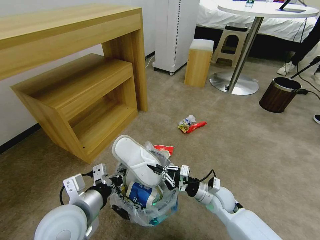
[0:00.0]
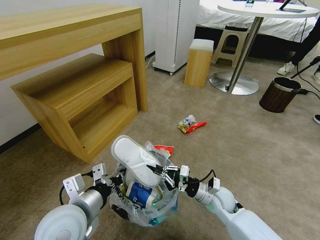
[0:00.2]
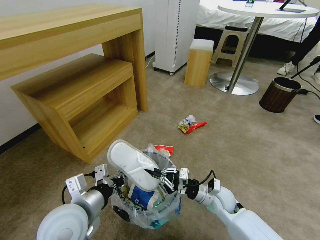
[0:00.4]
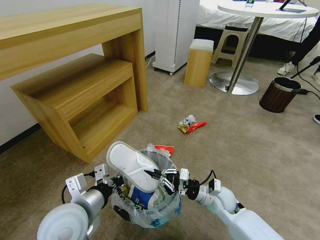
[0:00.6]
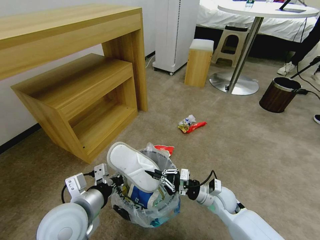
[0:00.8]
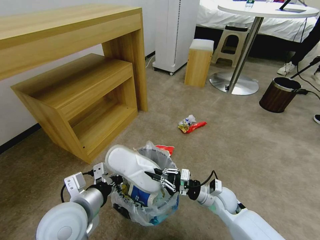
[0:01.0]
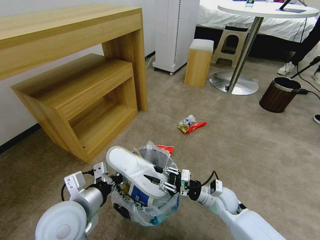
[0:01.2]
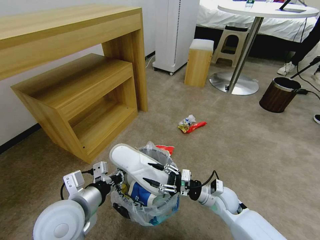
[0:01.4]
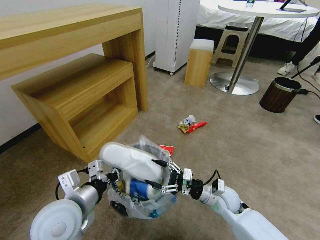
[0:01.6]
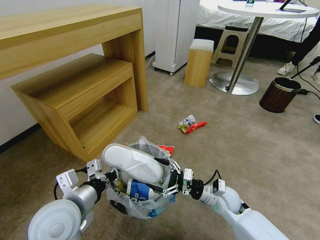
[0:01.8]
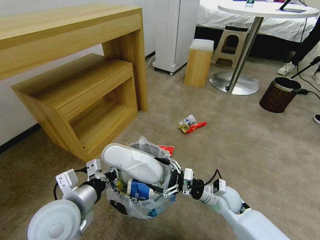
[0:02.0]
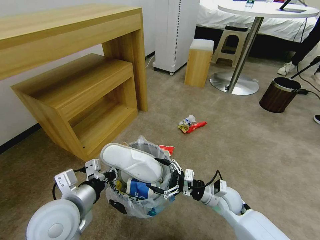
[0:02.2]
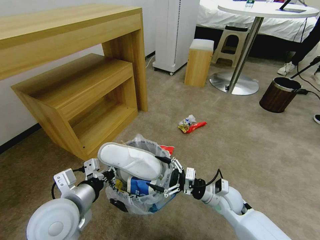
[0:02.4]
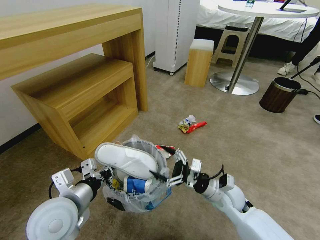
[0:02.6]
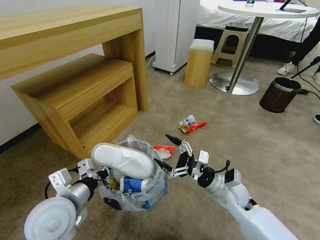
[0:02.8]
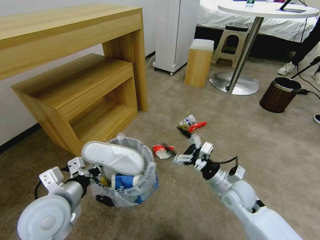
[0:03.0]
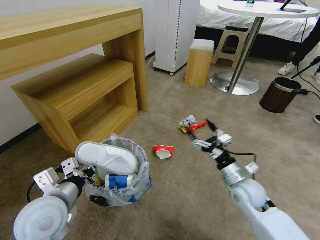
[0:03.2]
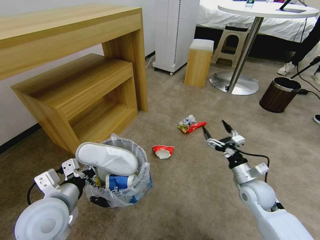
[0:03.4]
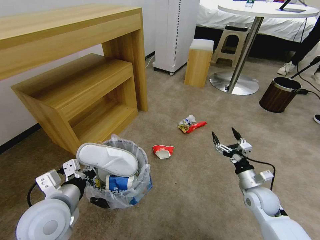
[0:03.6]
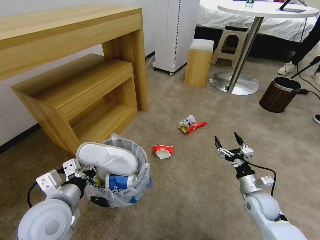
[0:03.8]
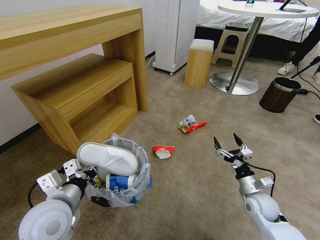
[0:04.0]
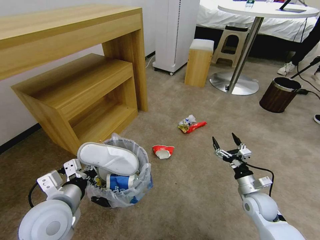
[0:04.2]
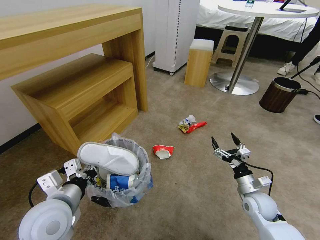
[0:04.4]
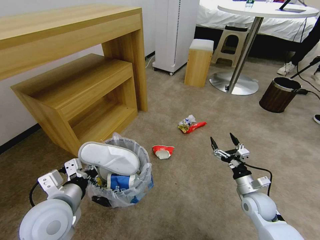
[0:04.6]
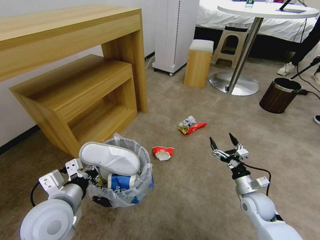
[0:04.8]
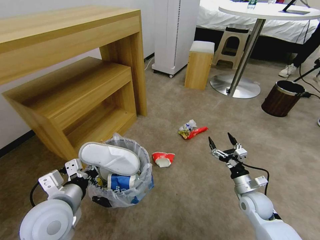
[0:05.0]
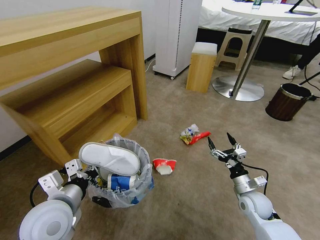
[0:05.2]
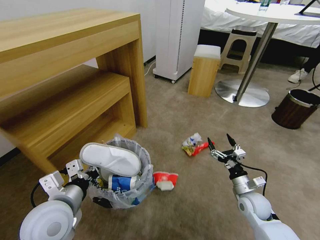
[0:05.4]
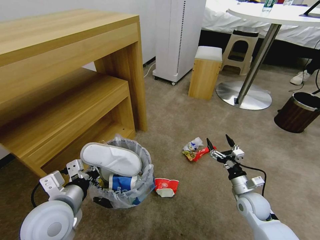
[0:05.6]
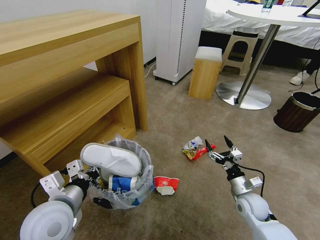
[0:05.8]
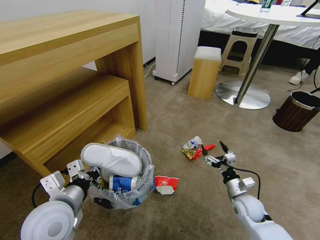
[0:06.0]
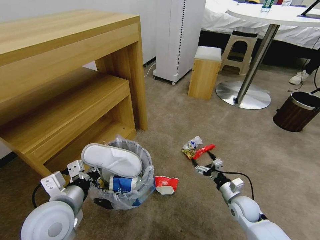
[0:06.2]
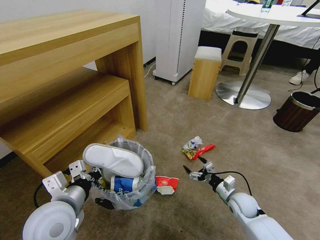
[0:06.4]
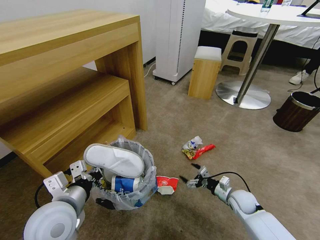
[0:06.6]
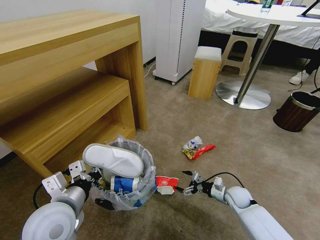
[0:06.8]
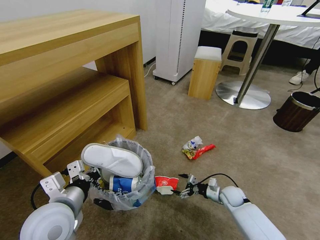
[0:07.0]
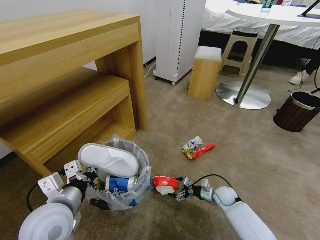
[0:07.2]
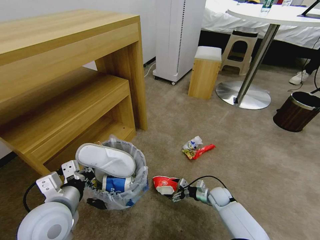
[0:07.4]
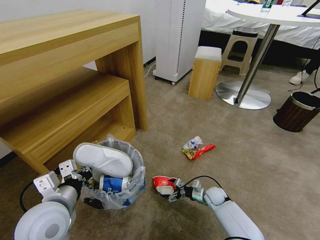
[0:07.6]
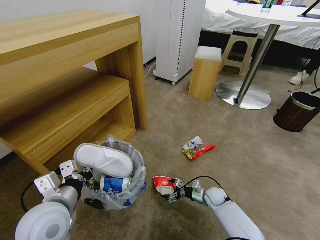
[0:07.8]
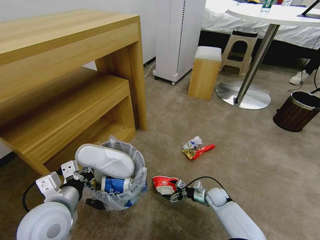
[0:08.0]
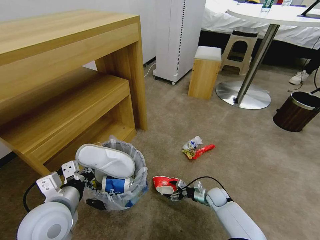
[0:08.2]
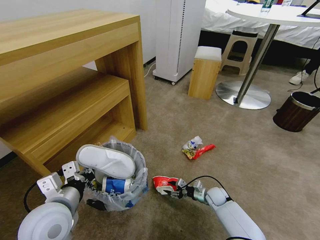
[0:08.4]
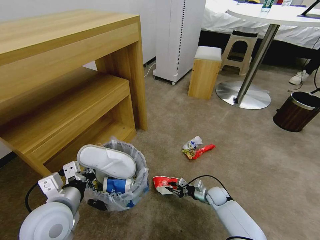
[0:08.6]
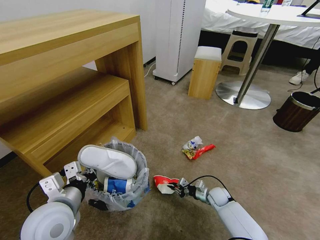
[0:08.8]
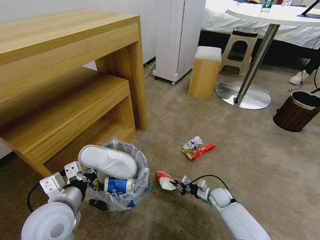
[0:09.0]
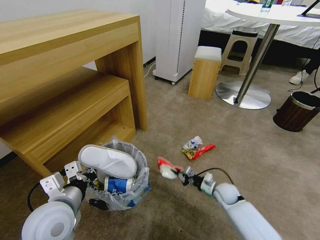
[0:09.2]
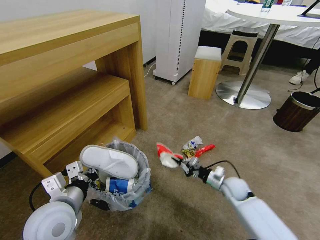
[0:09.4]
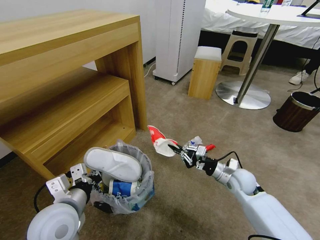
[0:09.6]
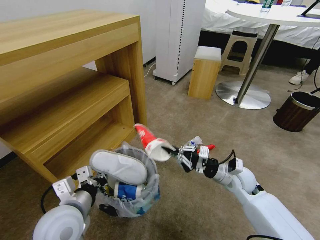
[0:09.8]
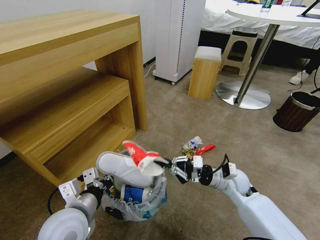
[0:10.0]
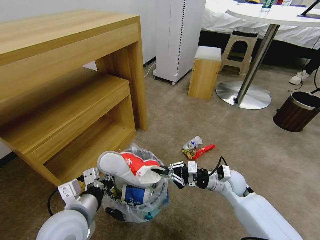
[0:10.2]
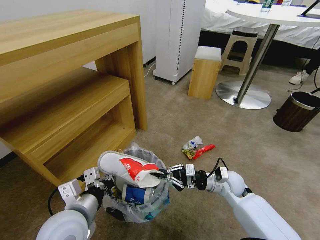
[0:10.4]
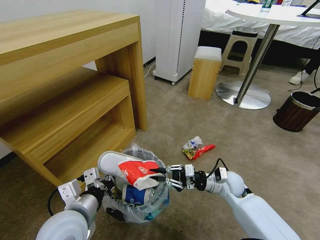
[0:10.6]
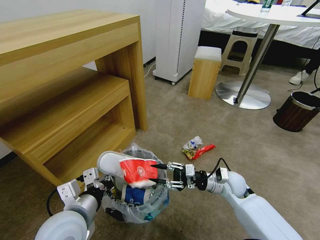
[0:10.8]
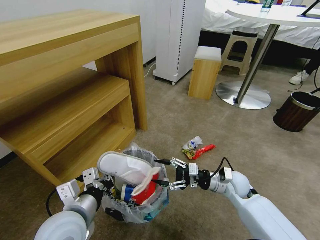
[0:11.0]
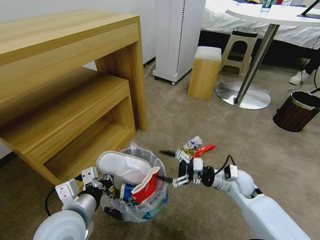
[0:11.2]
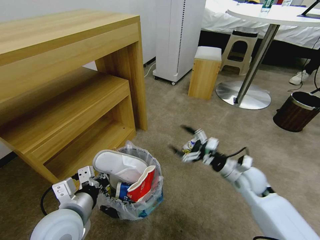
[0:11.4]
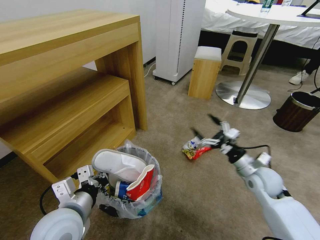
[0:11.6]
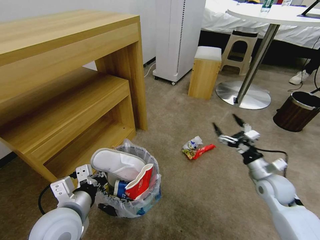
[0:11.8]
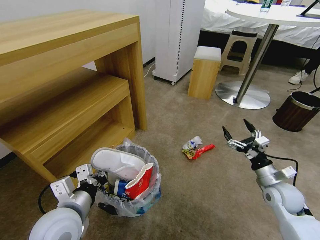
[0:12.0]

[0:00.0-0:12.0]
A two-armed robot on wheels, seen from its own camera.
Task of the whole recording: Pick up the trash bin and place the garbage on the floor into it.
0:00.0 to 0:01.6: The right gripper opens.
0:01.6 to 0:03.0: The right gripper is displaced upward by approximately 5 cm.
0:03.0 to 0:04.4: The right gripper travels to the right and downward by some 15 cm.
0:06.0 to 0:07.6: The right gripper shifts approximately 15 cm downward, forward and to the left.
0:07.6 to 0:09.0: The right gripper closes.
0:09.0 to 0:10.4: The right gripper shifts about 15 cm upward.
0:10.4 to 0:12.0: The right gripper travels to the right by about 15 cm, and opens.

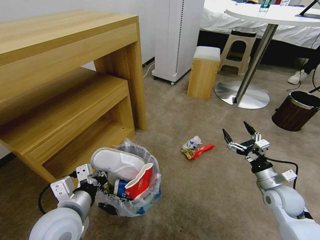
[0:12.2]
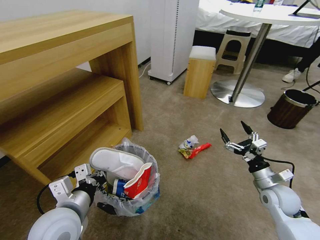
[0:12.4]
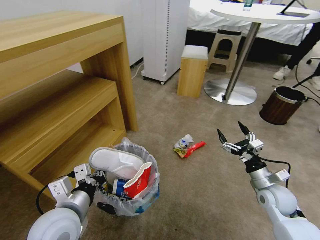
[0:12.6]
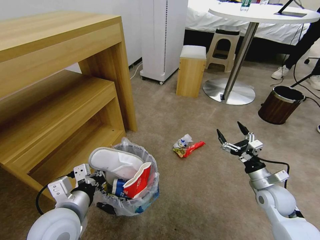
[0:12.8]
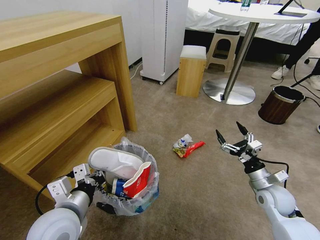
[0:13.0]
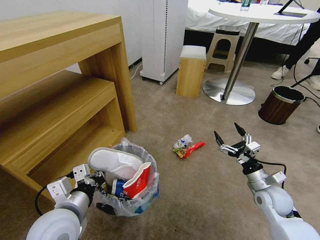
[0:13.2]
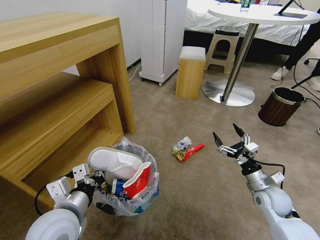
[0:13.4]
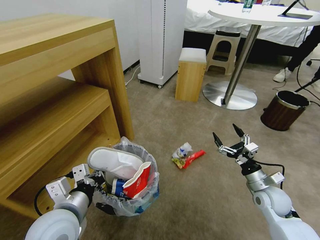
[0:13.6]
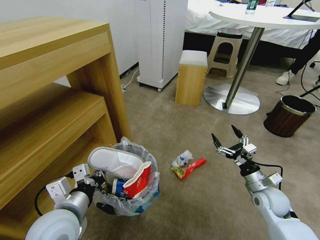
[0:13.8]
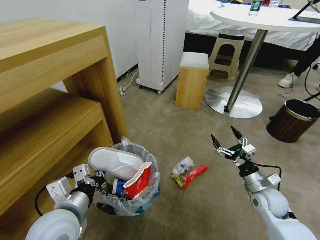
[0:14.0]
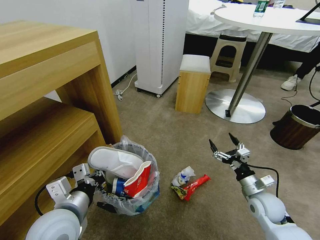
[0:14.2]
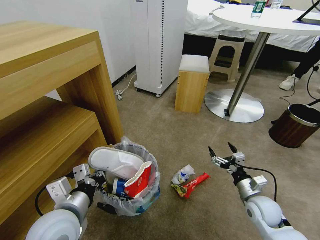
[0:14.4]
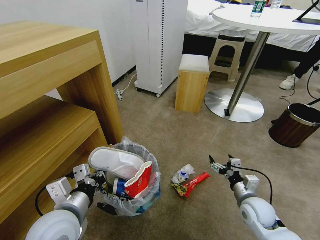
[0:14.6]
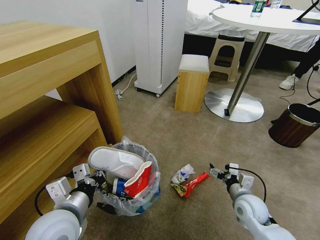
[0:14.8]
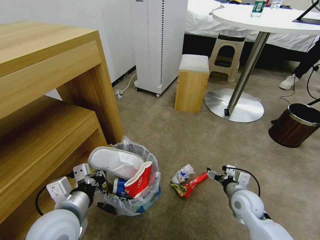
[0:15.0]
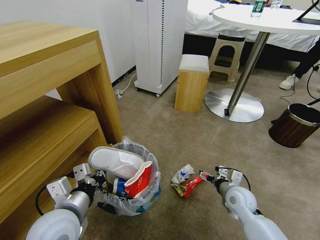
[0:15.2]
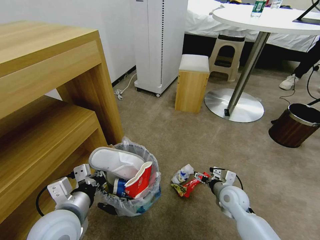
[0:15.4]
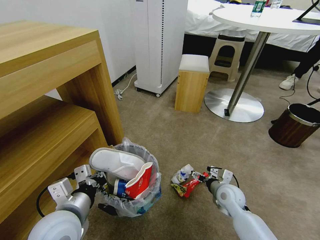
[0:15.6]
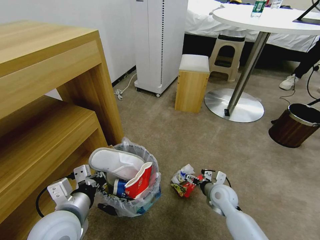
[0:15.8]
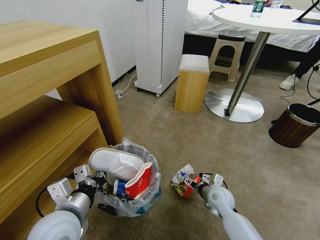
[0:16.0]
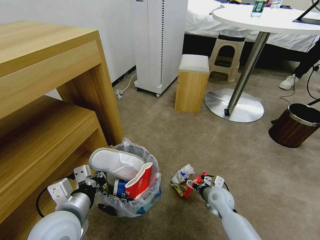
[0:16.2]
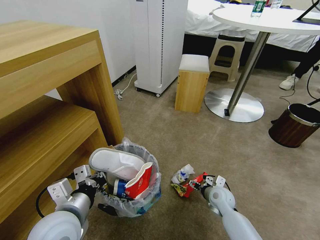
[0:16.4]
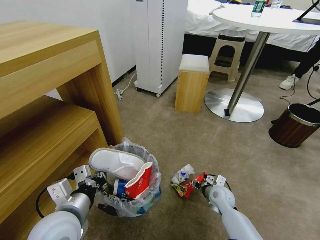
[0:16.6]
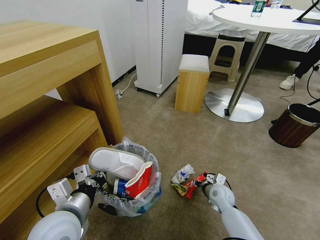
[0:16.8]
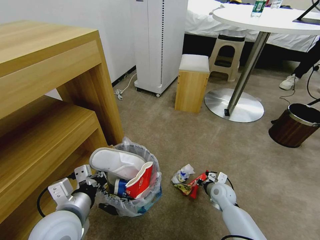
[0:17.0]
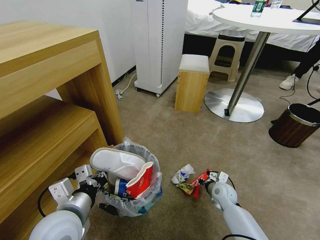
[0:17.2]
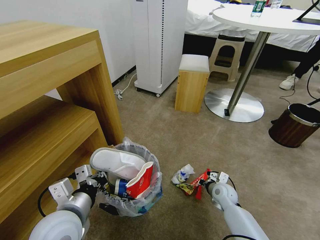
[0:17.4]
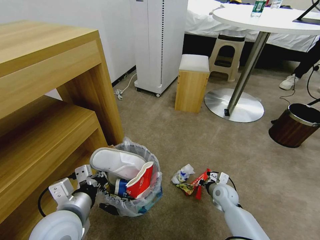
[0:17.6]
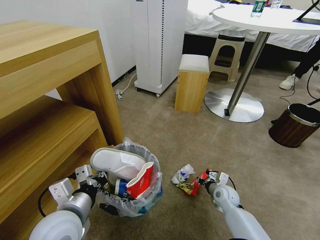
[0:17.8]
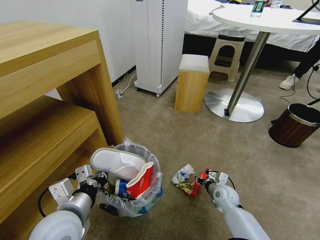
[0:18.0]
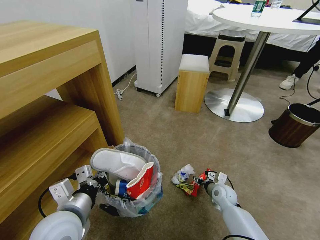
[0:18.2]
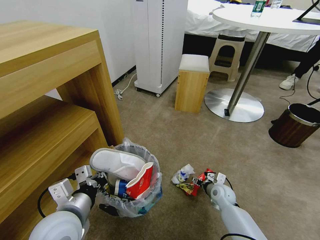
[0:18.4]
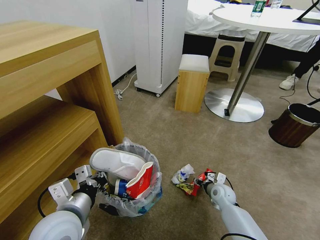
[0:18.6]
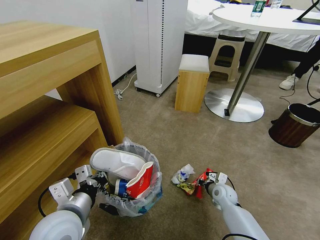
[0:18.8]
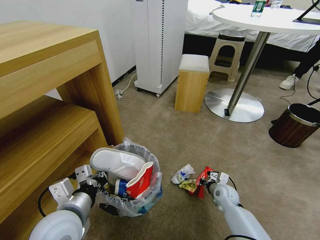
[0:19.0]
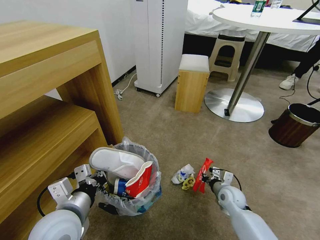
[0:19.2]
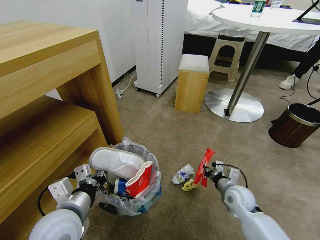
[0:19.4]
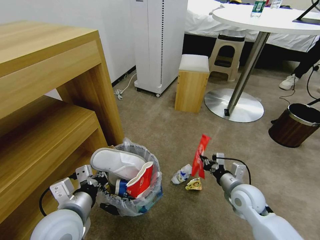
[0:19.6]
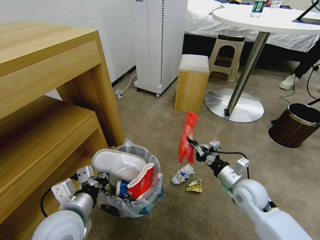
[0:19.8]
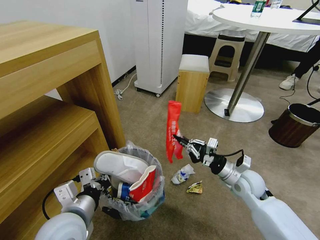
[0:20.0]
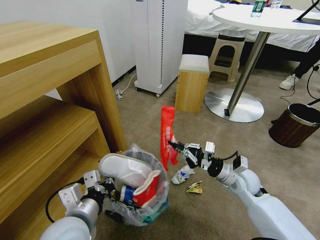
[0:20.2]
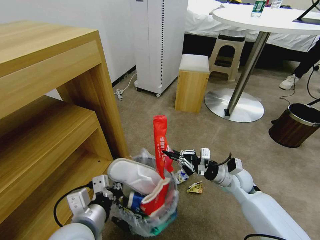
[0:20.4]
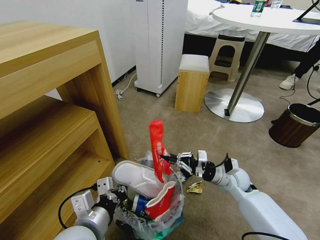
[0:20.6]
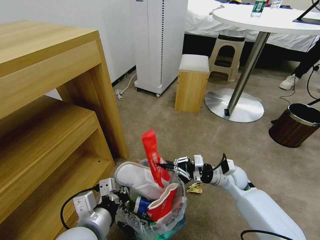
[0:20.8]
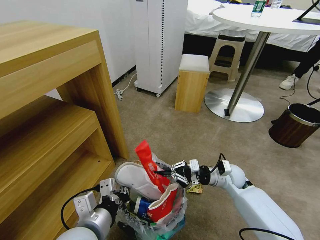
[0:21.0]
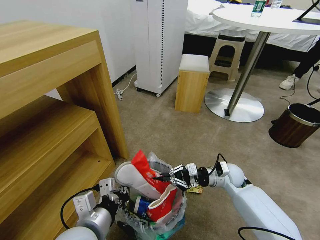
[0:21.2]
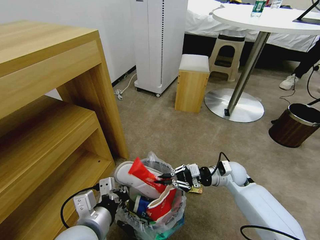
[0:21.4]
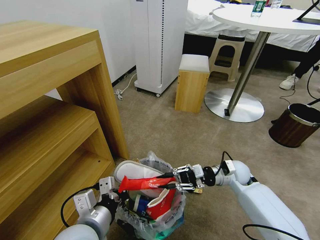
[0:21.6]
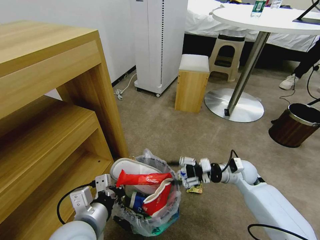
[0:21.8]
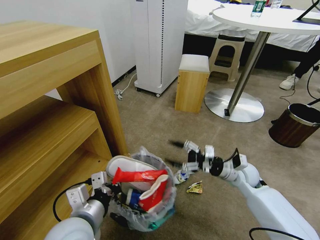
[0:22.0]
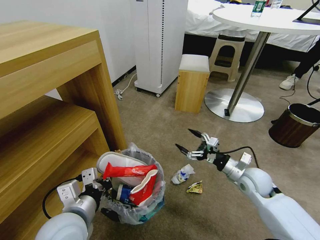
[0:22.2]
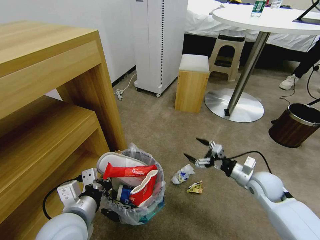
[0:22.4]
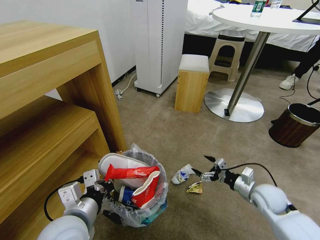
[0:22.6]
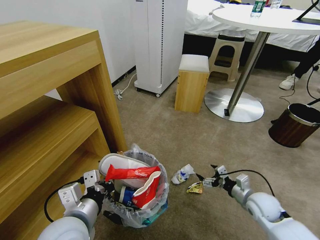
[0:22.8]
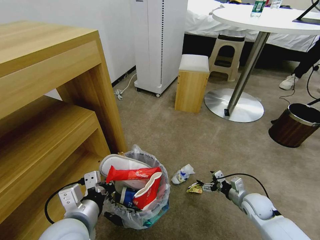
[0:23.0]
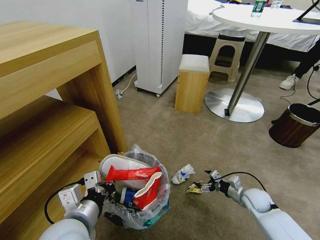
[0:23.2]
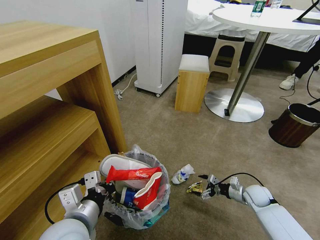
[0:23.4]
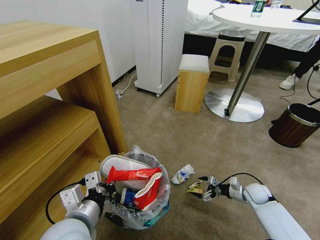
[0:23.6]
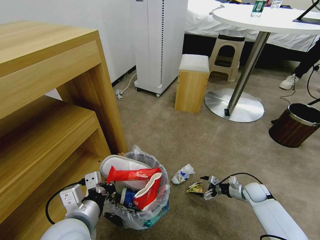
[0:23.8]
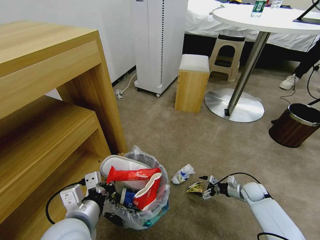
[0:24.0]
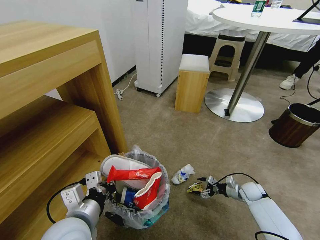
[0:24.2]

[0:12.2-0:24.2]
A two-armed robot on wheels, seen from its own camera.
Task of the whole recording: Pick up the trash bin and place the garbage on the floor into it.
0:13.8 to 0:15.2: The right gripper goes roughly 10 cm to the left.
0:15.2 to 0:16.6: The right gripper moves downward, about 10 cm, and closes up.
0:16.6 to 0:18.2: The right gripper closes, then reopens.
0:18.2 to 0:19.8: The right gripper shifts roughly 15 cm upward, and closes its fingers.
0:19.8 to 0:21.2: The right gripper is displaced forward by approximately 10 cm. The left gripper moves some 5 cm.
0:21.2 to 0:22.6: The right gripper heads to the right and backward, covering about 10 cm, and opens.
0:22.6 to 0:24.2: The right gripper moves downward, roughly 15 cm.
